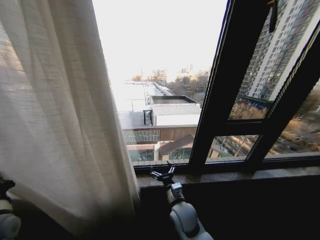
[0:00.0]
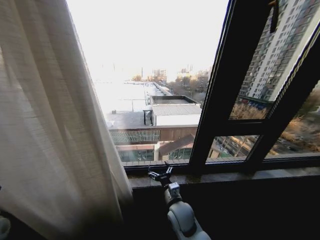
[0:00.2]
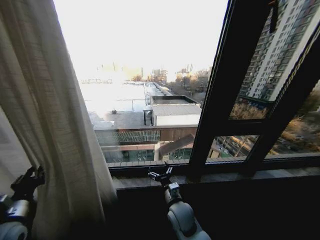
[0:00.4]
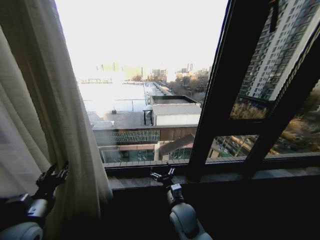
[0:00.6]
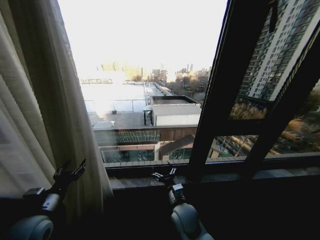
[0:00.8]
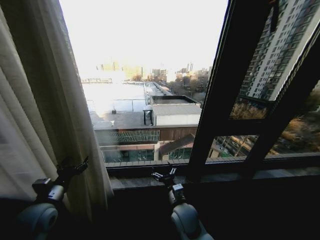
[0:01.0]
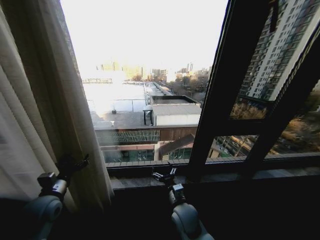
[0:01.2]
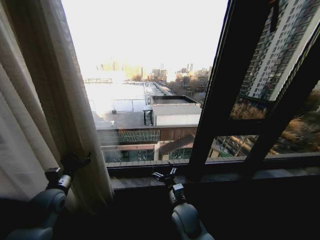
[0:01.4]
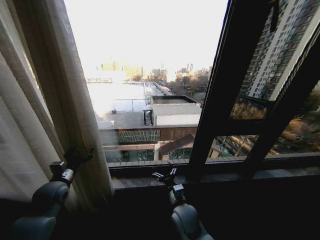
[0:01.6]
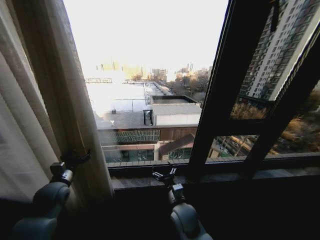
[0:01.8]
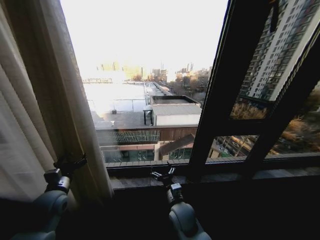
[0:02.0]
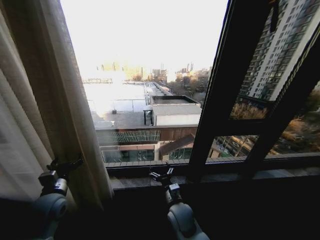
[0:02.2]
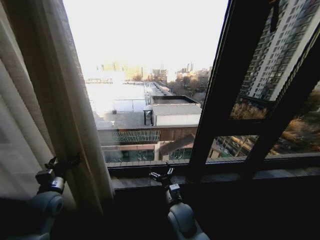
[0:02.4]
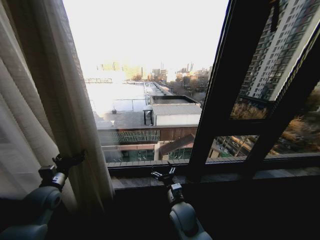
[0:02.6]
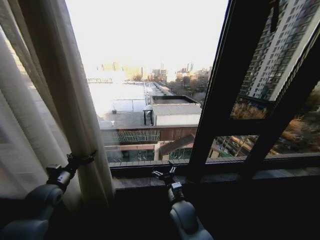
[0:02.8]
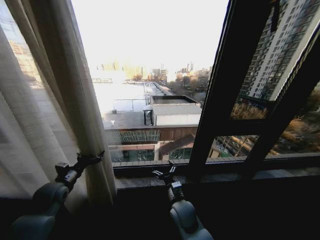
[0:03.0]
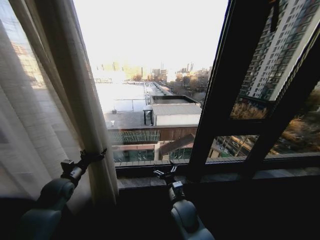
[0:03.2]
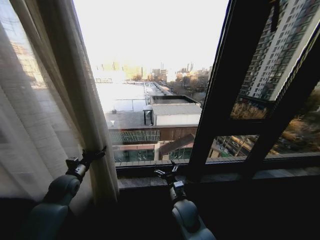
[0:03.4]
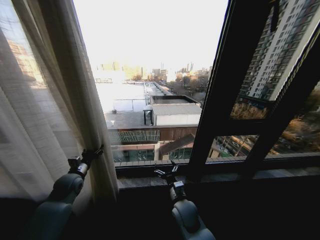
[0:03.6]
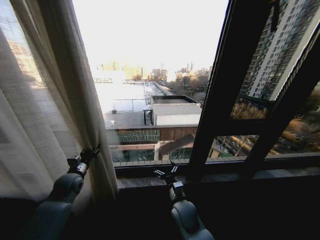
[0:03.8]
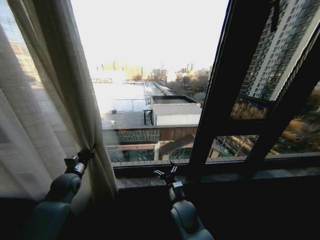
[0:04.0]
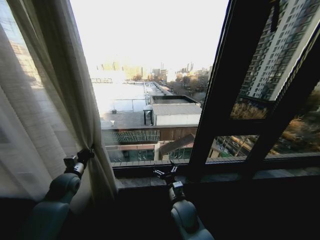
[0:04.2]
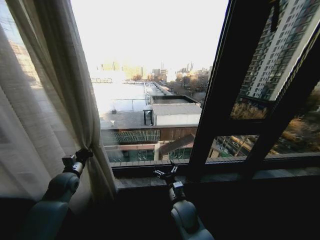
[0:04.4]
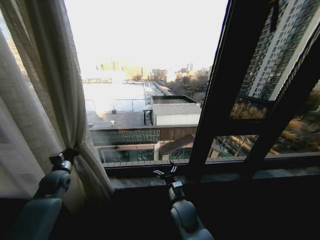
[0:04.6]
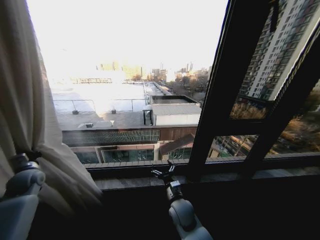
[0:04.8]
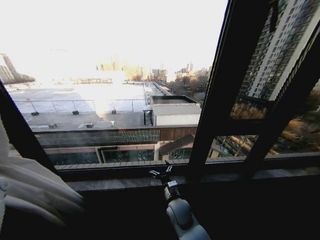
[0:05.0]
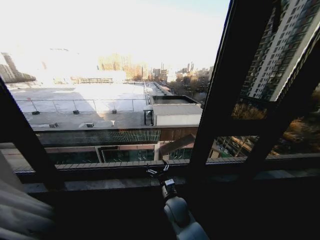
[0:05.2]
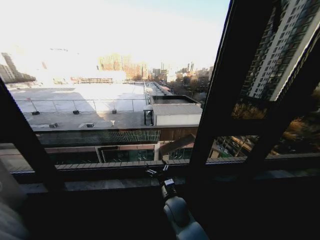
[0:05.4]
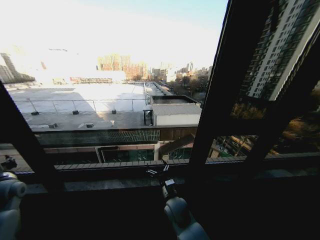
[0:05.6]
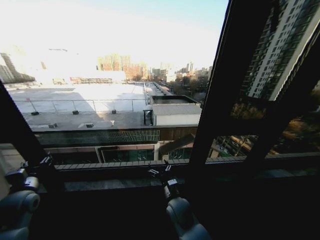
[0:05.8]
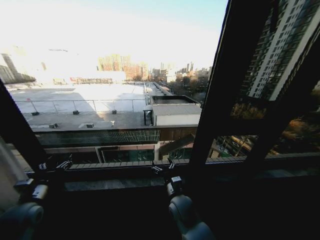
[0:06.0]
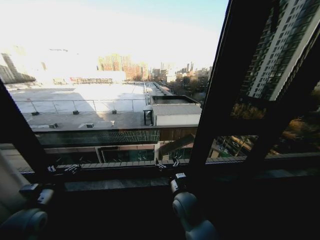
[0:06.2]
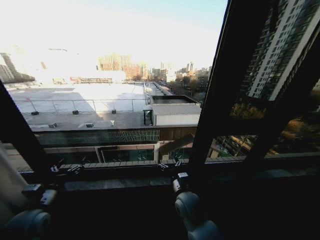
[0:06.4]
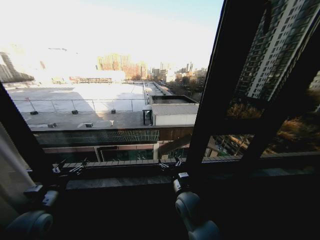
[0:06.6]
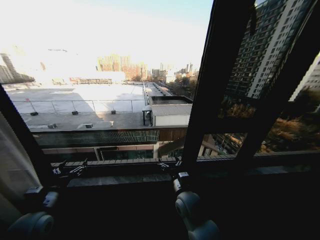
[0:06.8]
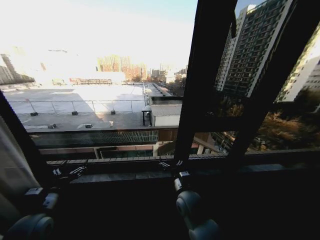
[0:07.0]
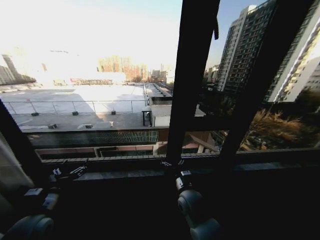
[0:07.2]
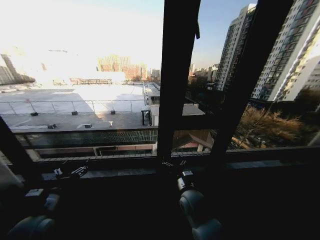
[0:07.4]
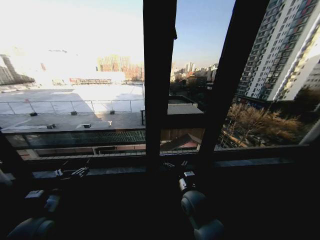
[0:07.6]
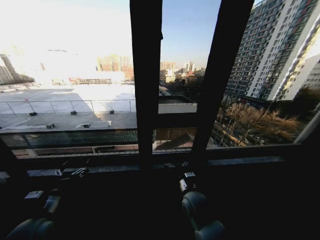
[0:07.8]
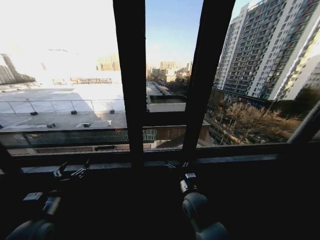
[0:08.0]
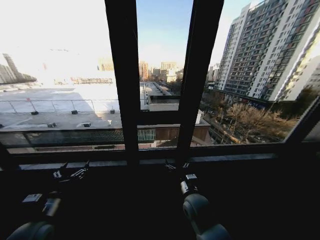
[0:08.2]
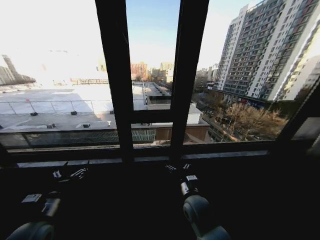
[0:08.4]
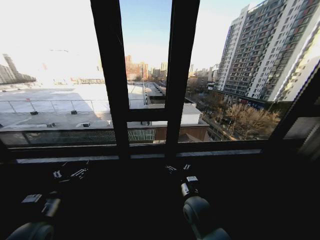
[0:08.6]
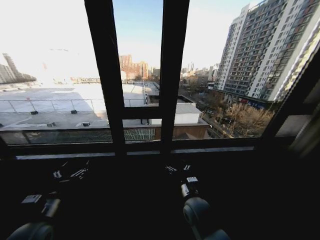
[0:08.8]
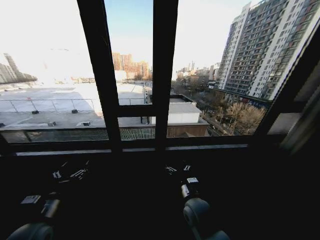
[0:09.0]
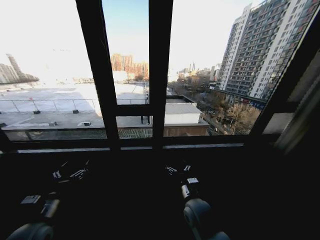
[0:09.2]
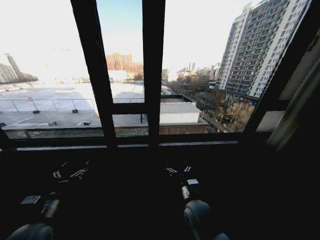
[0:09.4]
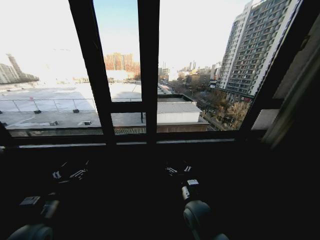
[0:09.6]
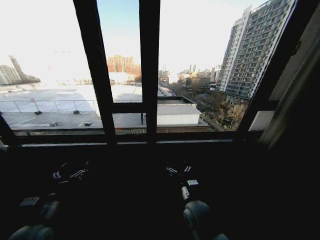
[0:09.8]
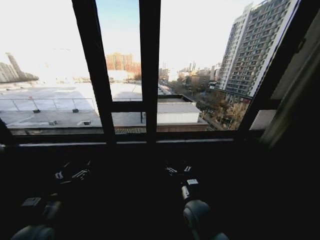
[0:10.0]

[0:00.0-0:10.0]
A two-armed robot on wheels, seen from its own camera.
Task of the whole recording: Open the curtains by pulling them apart, changing their state from closed to fully open.
0:00.0 to 0:01.4: The left gripper is displaced forward and to the right by roughly 10 cm, and opens its fingers.
0:01.4 to 0:02.8: The grippers move only a little.
0:02.8 to 0:04.2: The left gripper travels forward by about 5 cm, and closes.
0:04.2 to 0:05.8: The left gripper travels backward by approximately 10 cm, reaches about 30 cm to the left, then returns, and opens.
0:05.8 to 0:07.2: The right gripper shifts by about 5 cm, while the left gripper travels to the right and backward by about 10 cm, and opens.
